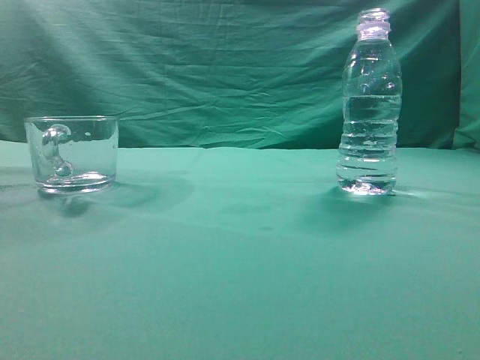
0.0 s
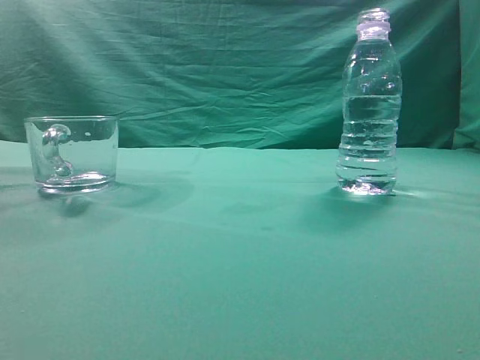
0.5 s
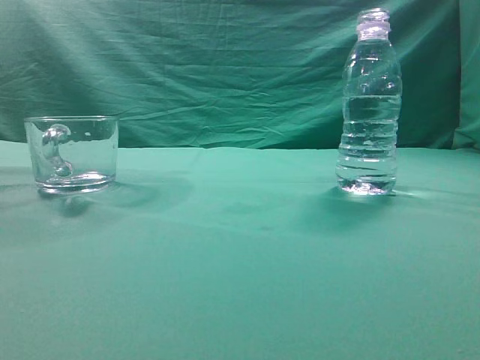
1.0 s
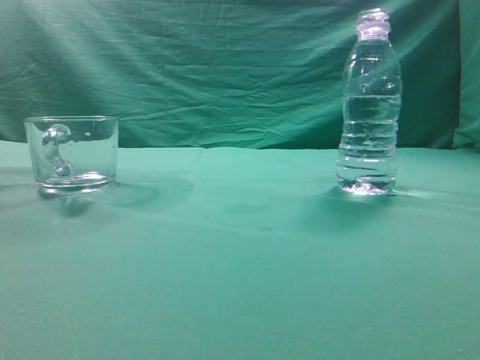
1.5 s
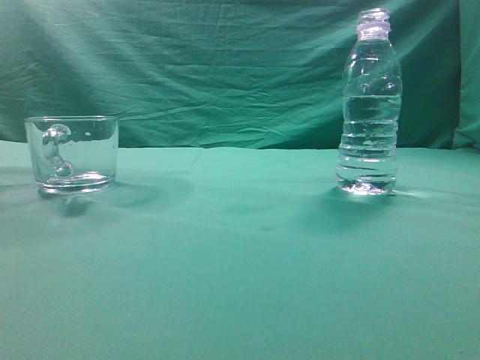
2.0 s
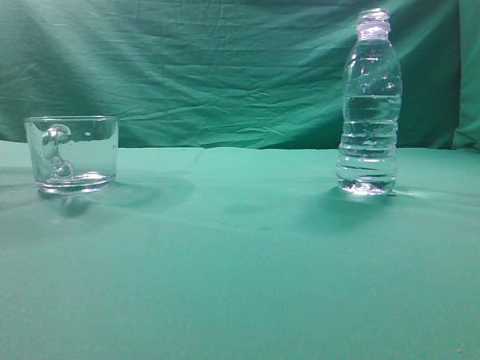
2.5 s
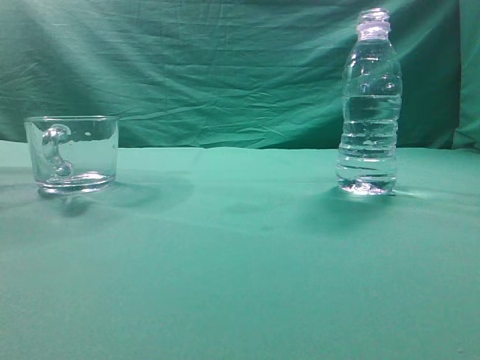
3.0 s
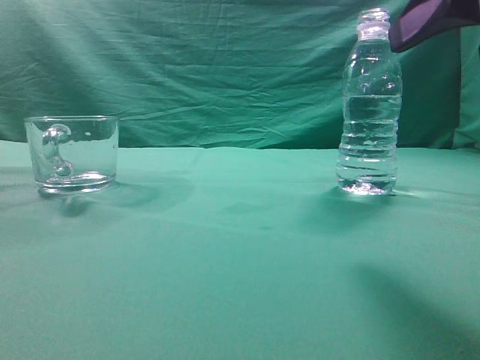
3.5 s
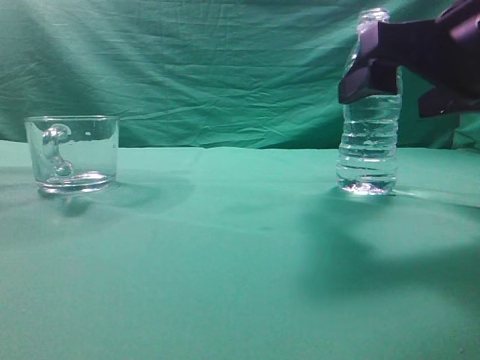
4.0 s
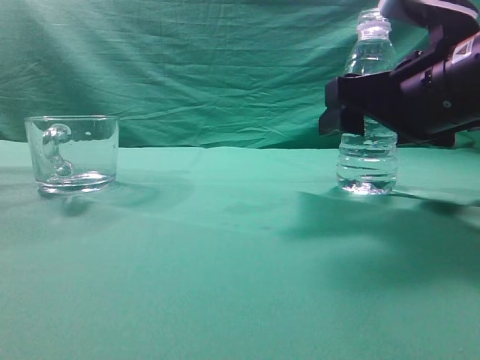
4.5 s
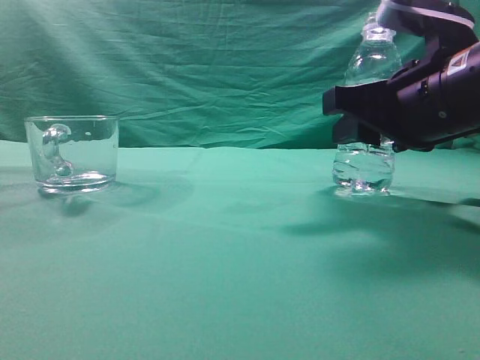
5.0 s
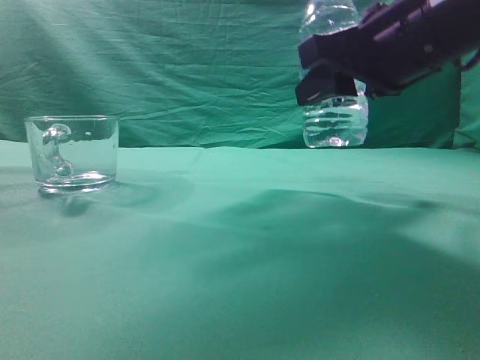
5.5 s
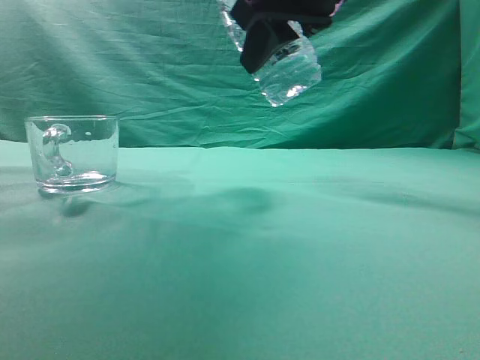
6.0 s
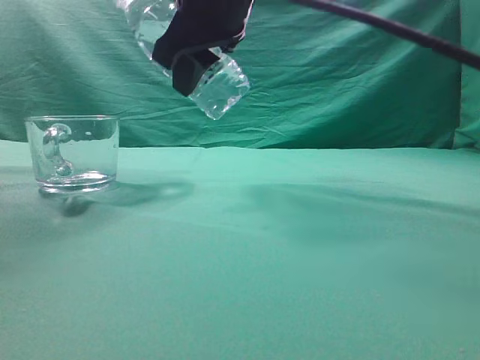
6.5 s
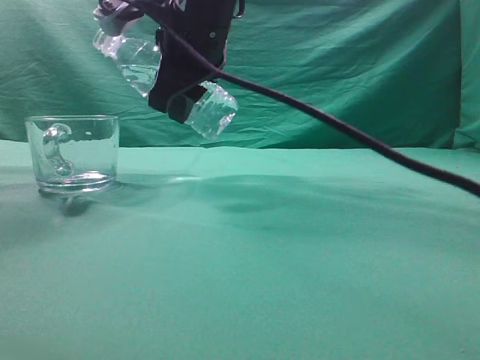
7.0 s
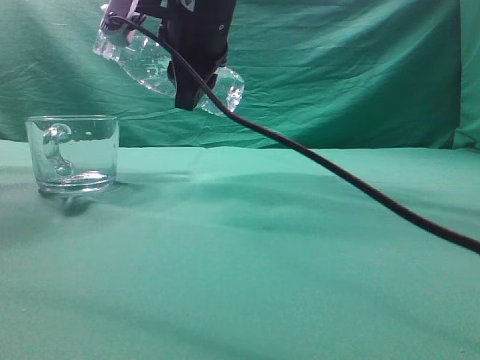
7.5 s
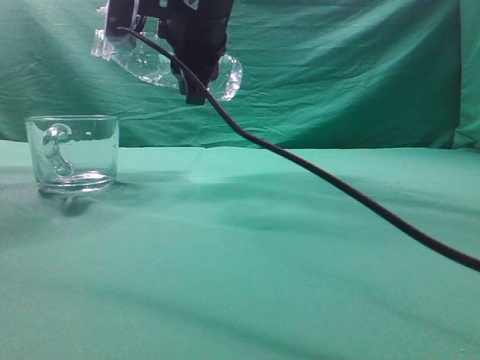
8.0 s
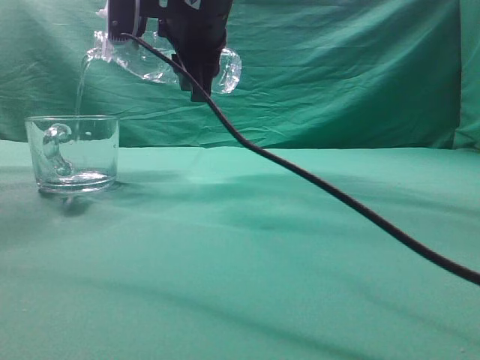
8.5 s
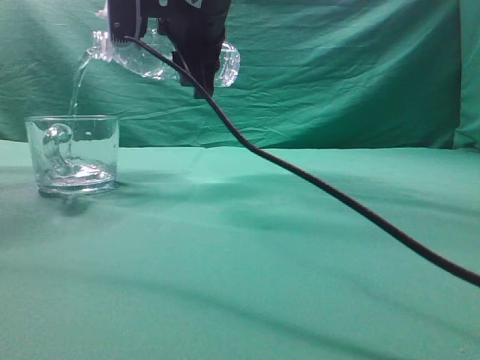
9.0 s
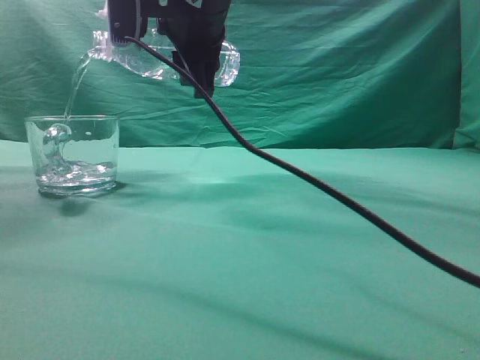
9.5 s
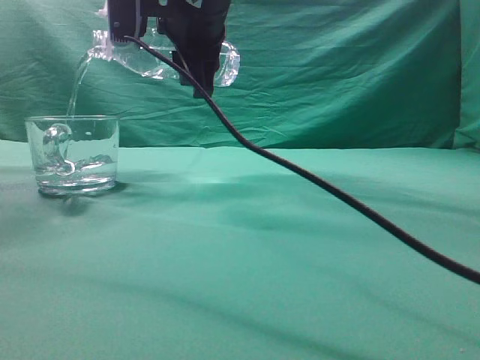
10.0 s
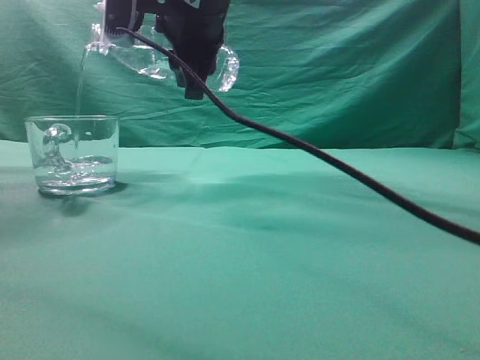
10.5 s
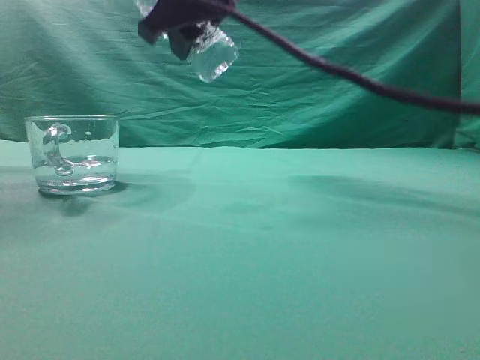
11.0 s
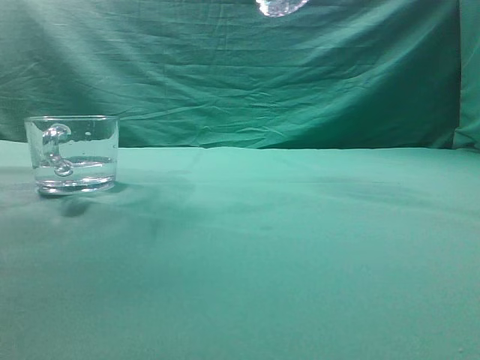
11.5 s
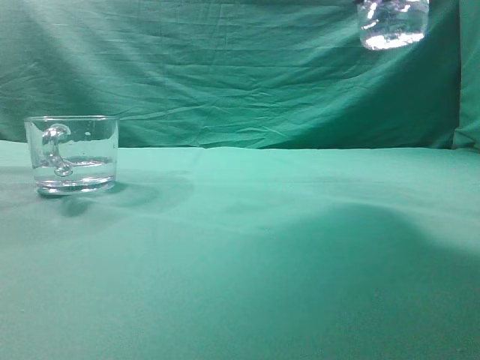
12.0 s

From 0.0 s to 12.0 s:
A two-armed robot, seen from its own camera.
Task of the whole recording: pick up the water bottle and pour the water in it into the glass.
Step, from 0.0 s to 5.0 s: Grasp the mineral water bottle.
Step, from 5.5 s to 11.0 s: Pour water into the teacup.
From 2.0 s to 4.0 s: The right gripper goes roughly 25 cm forward, to the left and downward, and opens its fingers.
From 4.0 s to 6.0 s: The right gripper is displaced to the left, upward and forward by some 15 cm, and closes.
From 6.0 s to 8.0 s: The right gripper heads to the left and forward, covering roughly 15 cm.
From 8.0 s to 10.0 s: There are only small adjustments of the grippers.
From 10.0 s to 12.0 s: The right gripper goes about 25 cm to the right and backward.

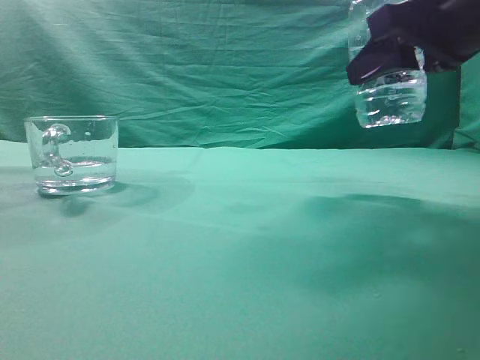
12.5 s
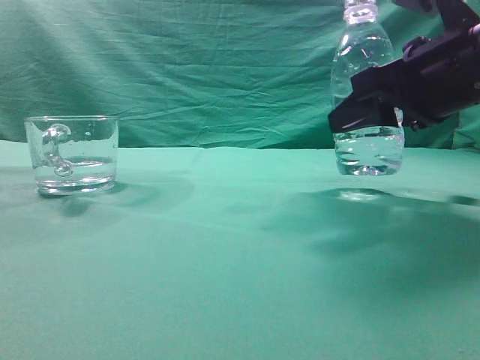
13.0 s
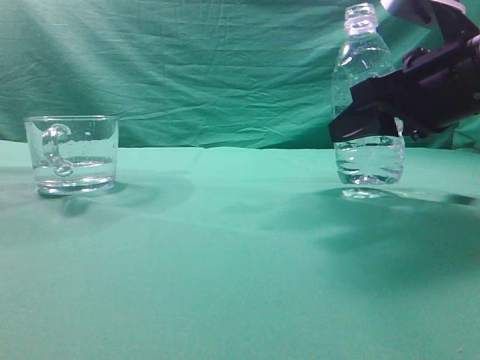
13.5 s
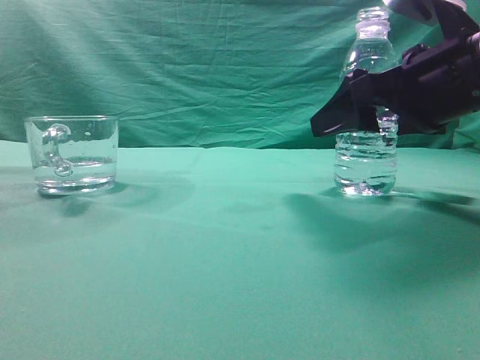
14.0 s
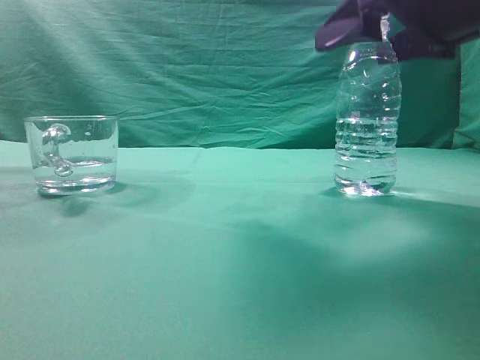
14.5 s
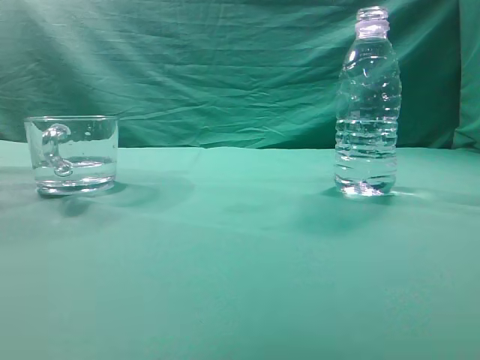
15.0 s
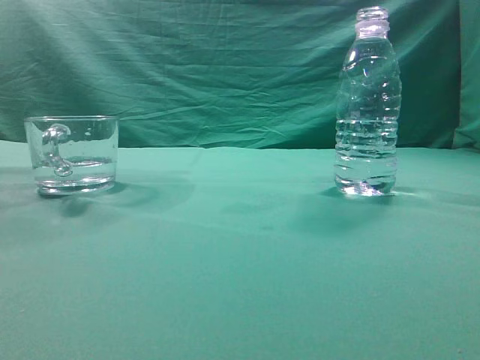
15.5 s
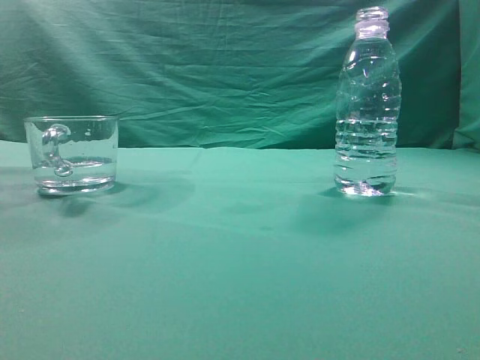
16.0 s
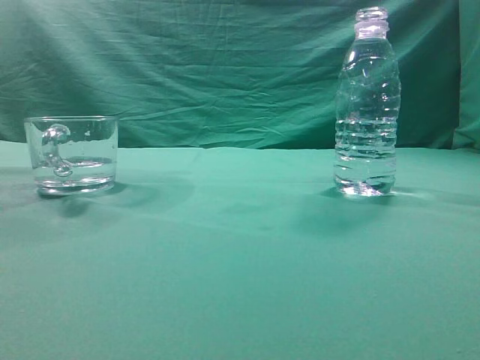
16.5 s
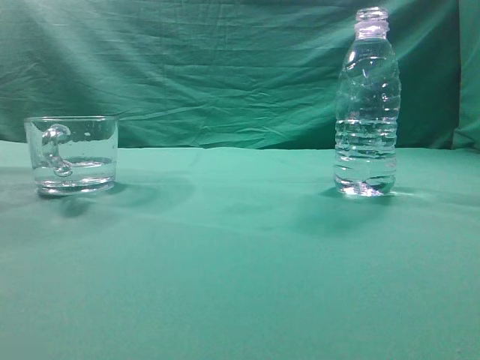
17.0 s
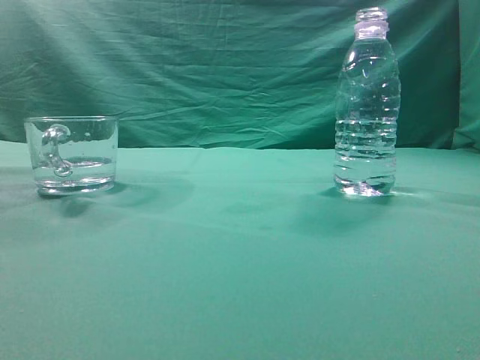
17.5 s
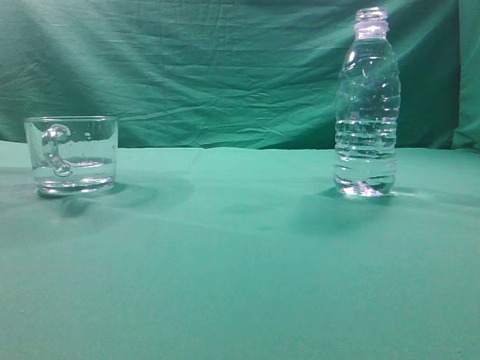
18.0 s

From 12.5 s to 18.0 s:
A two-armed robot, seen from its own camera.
Task of the whole recording: pick up the water bottle and pour the water in it into the glass.
From 12.5 s to 14.5 s: The right gripper reaches roughly 5 cm downward, then returns, and opens.
From 14.5 s to 16.0 s: The right gripper moves backward and upward, roughly 25 cm, and closes its fingers.
